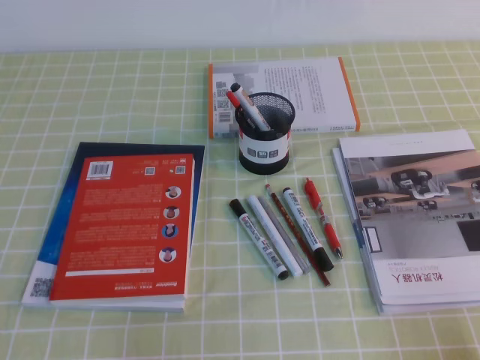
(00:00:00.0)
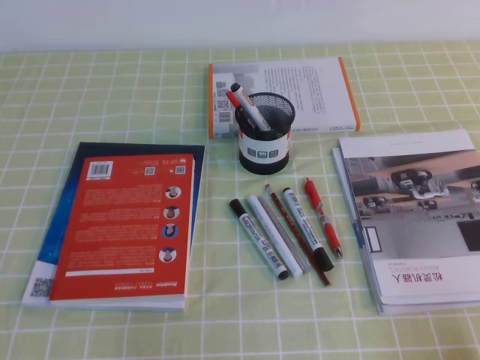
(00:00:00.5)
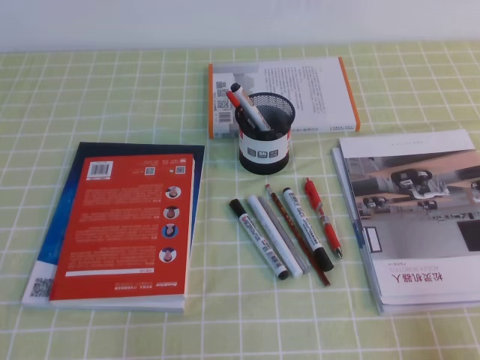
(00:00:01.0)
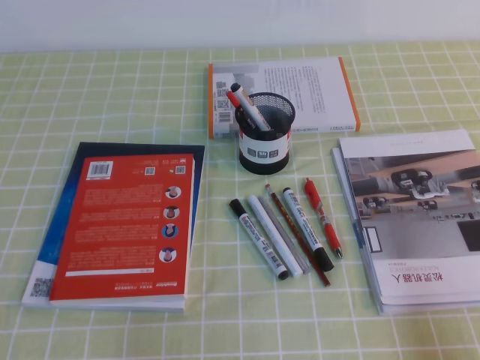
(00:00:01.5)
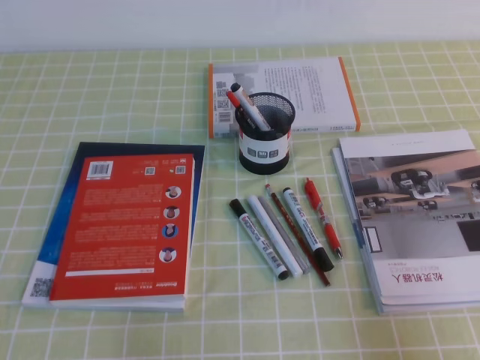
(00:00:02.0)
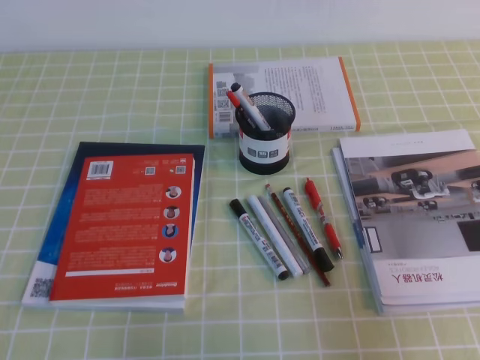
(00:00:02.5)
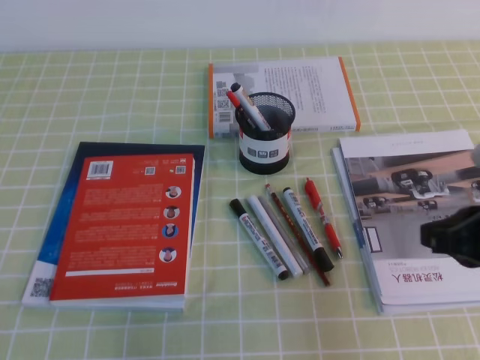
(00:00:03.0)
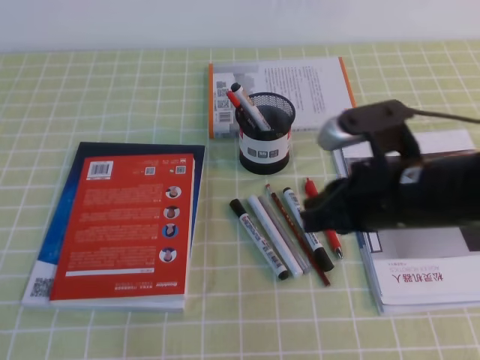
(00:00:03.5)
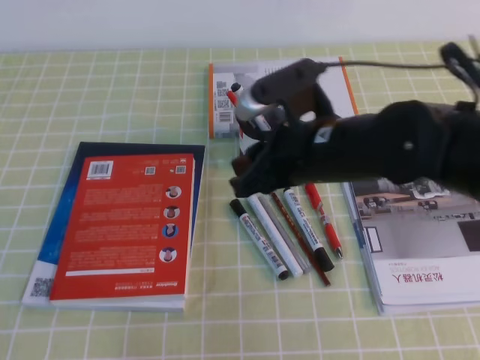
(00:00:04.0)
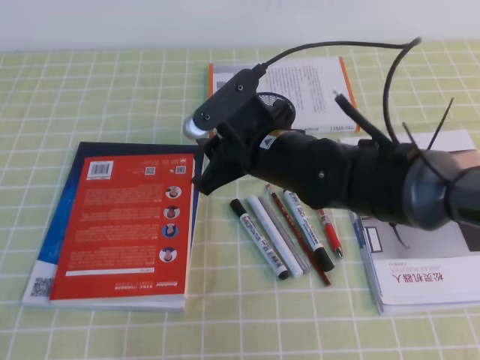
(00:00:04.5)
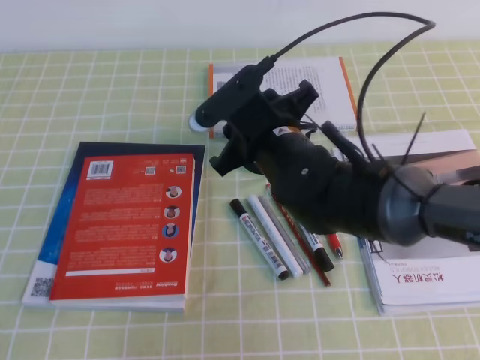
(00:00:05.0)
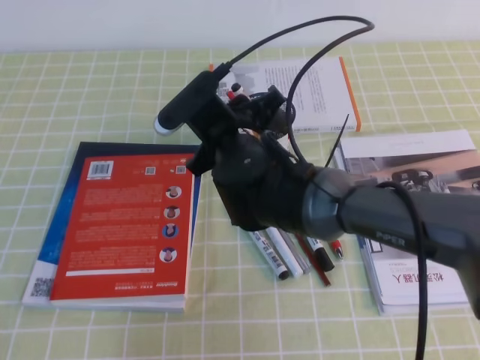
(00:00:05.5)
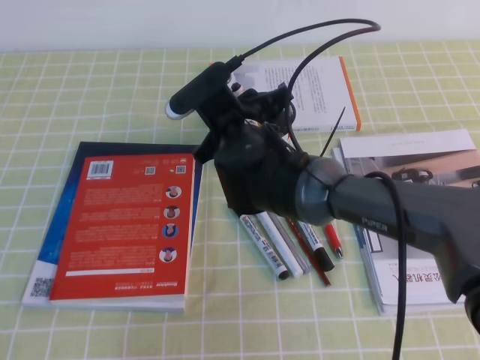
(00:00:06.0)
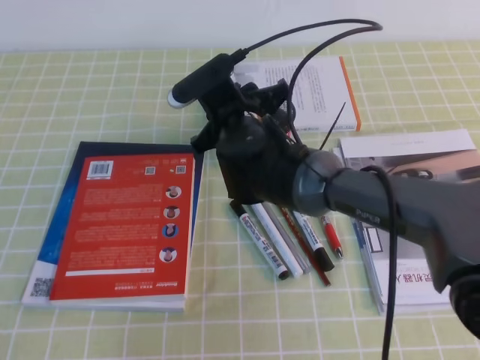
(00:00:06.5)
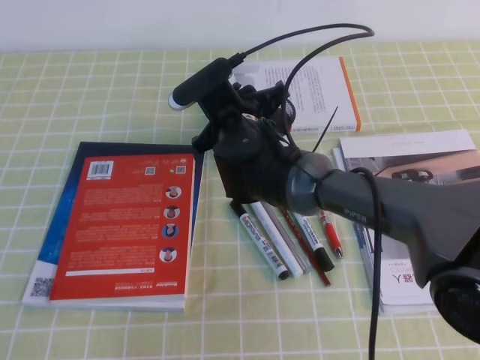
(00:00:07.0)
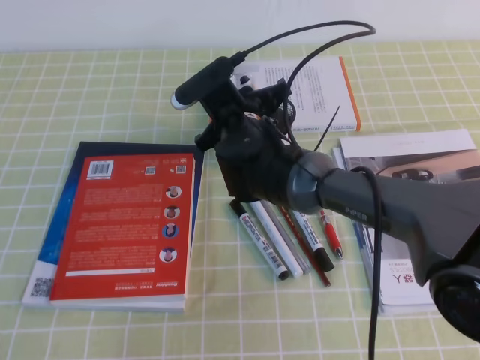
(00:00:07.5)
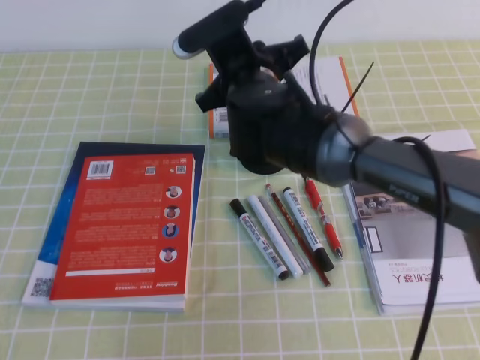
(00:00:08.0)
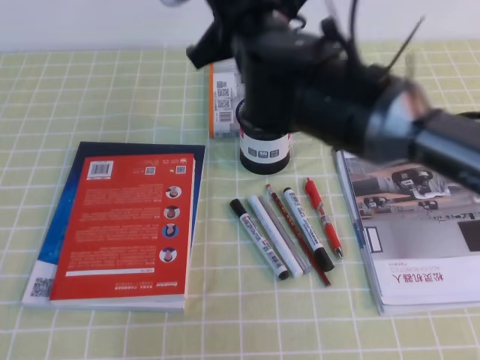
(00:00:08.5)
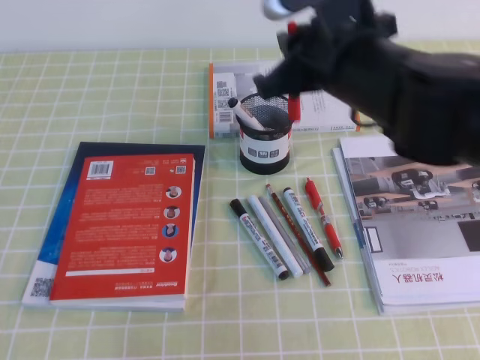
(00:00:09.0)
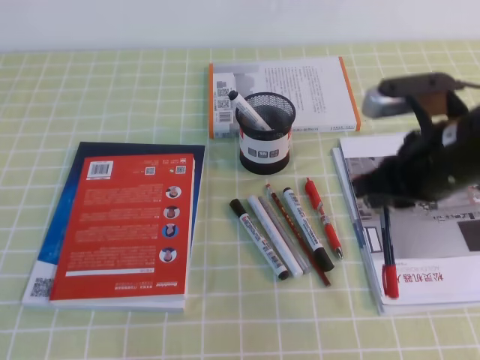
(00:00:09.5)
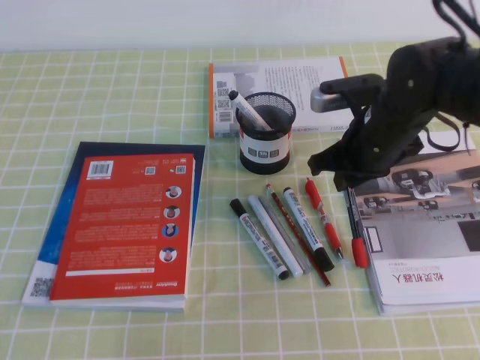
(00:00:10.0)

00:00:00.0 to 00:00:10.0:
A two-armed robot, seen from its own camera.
Step, 00:00:00.0 to 00:00:04.5: Pick up the pen with the right gripper.
Step, 00:00:05.0 to 00:00:06.5: Place the pen on the table with the right gripper.
00:00:00.0 to 00:00:02.0: The right gripper moves upward, about 5 cm.
00:00:02.0 to 00:00:04.0: The right gripper moves to the left and forward, approximately 30 cm, and opens its fingers.
00:00:04.0 to 00:00:06.0: The right gripper is displaced to the left and forward by roughly 10 cm.
00:00:06.0 to 00:00:08.0: The right gripper ends up approximately 5 cm from where it was, and closes.
00:00:08.0 to 00:00:10.0: The right gripper shifts about 15 cm to the right.

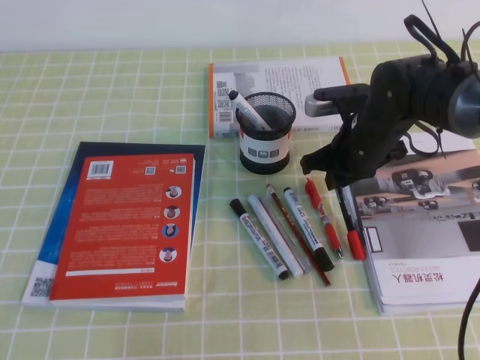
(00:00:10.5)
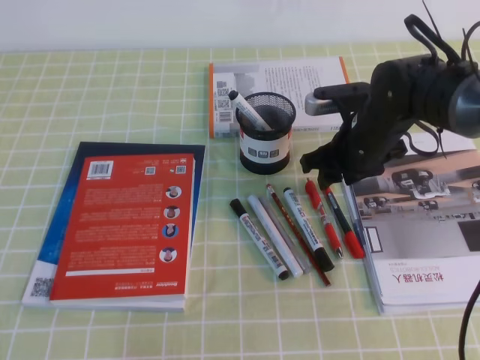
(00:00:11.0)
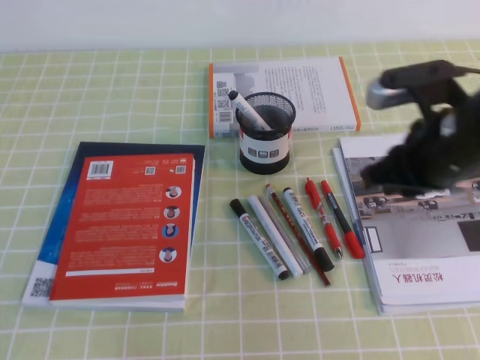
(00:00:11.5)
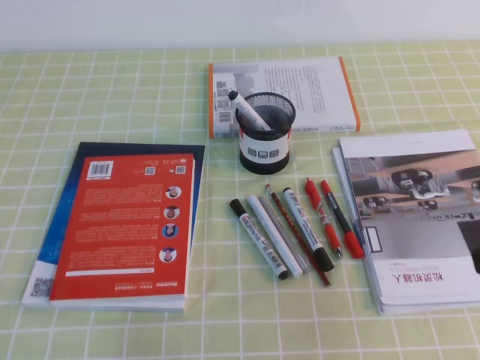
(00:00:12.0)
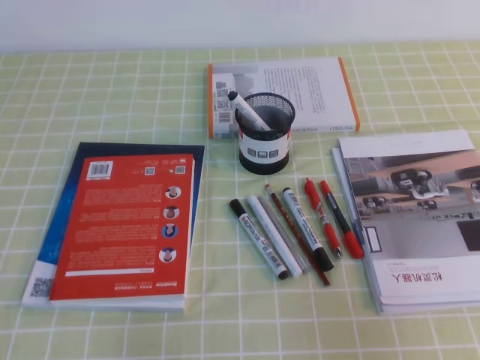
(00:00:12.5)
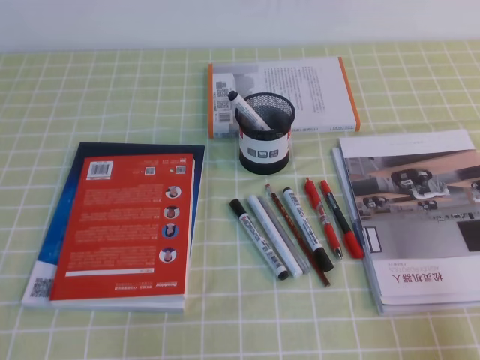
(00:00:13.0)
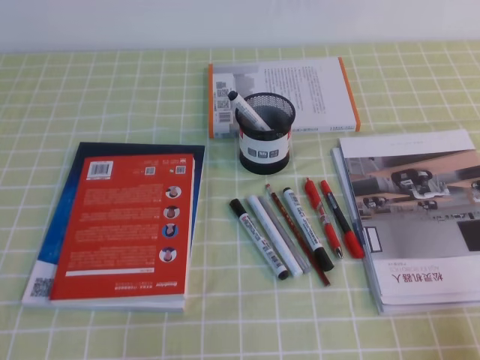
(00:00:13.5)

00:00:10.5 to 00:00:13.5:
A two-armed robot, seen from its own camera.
00:00:10.5 to 00:00:12.0: The right gripper travels backward, upward and to the right by roughly 30 cm, and opens and closes again.
00:00:12.0 to 00:00:13.5: The right gripper heads downward, backward and to the right, covering approximately 20 cm.

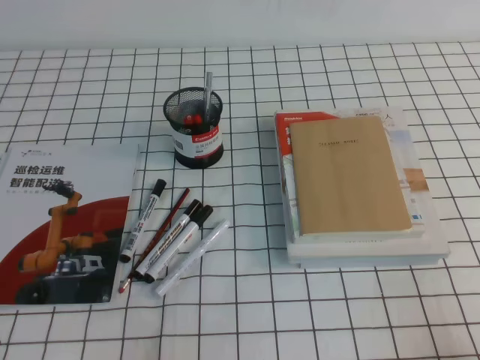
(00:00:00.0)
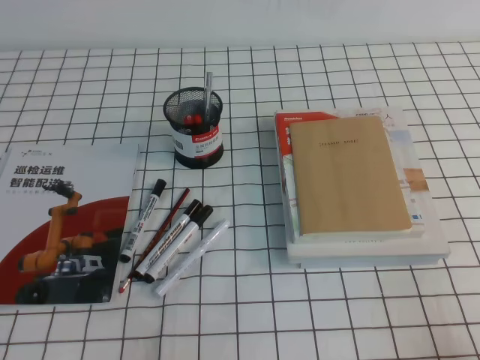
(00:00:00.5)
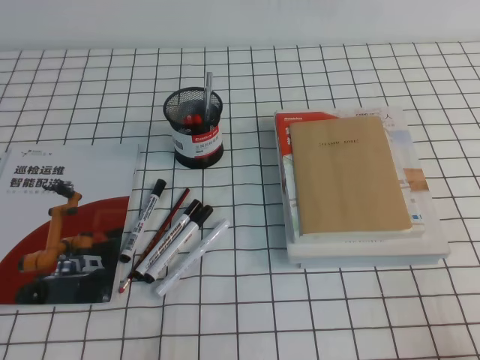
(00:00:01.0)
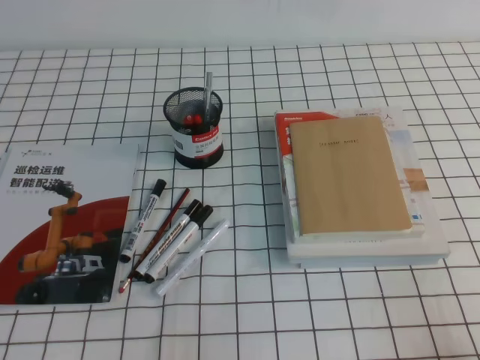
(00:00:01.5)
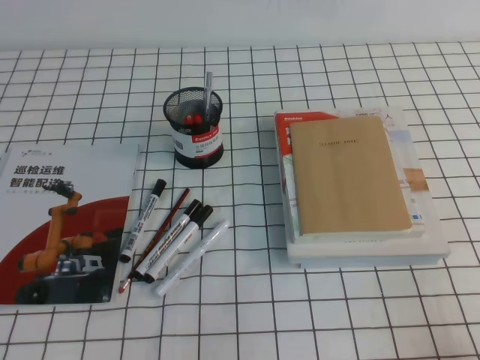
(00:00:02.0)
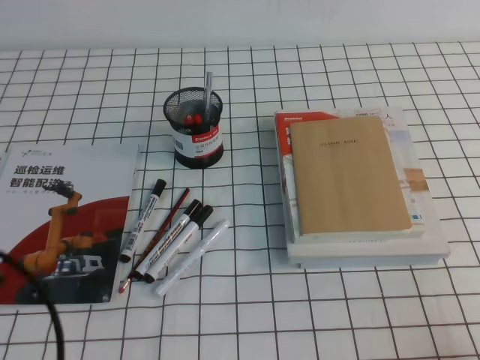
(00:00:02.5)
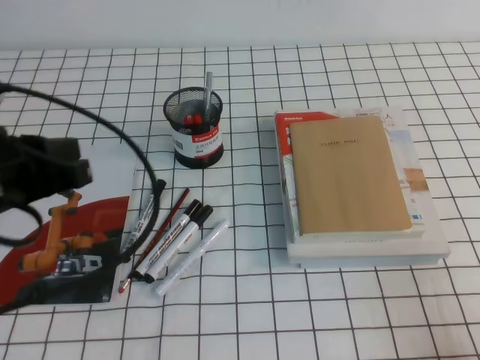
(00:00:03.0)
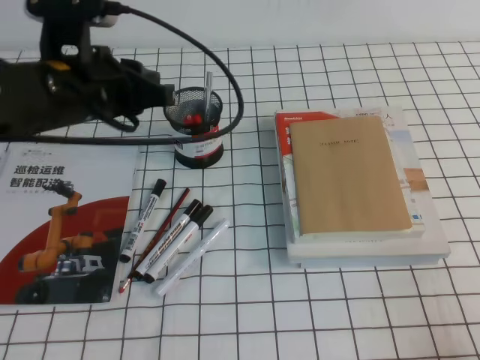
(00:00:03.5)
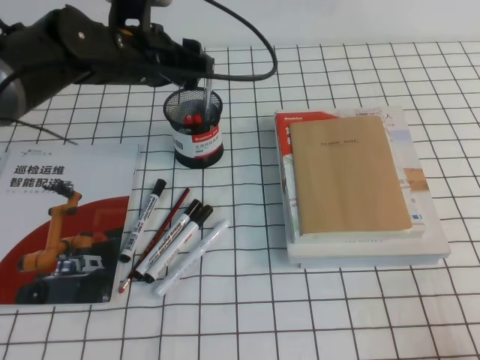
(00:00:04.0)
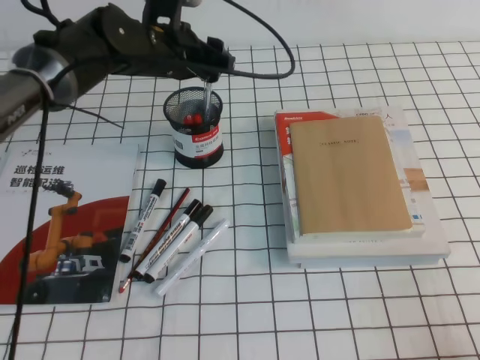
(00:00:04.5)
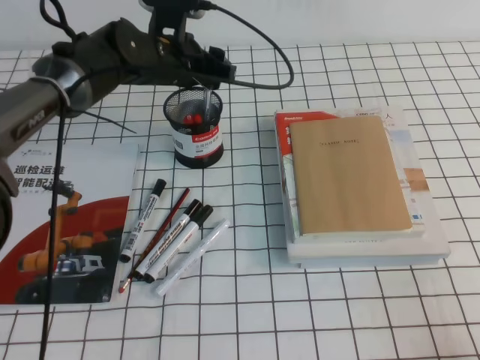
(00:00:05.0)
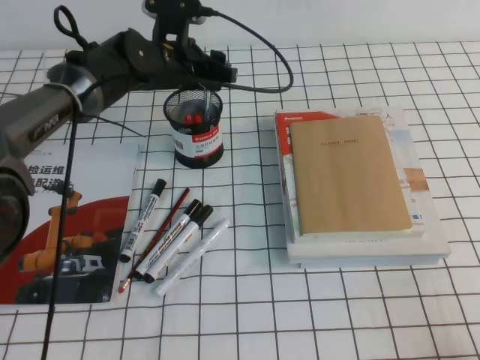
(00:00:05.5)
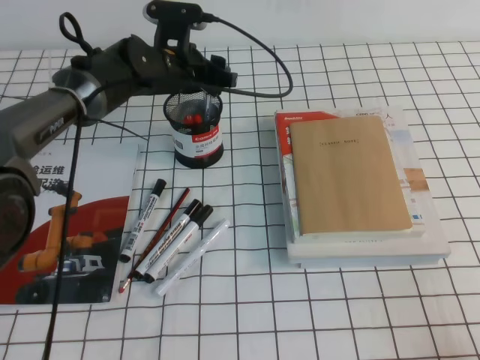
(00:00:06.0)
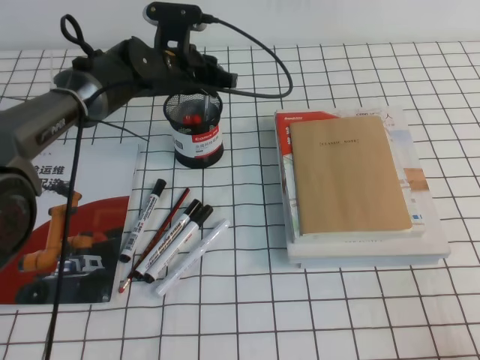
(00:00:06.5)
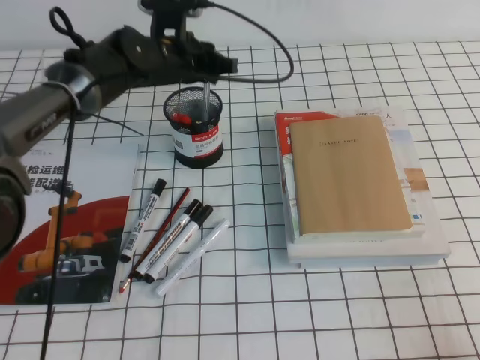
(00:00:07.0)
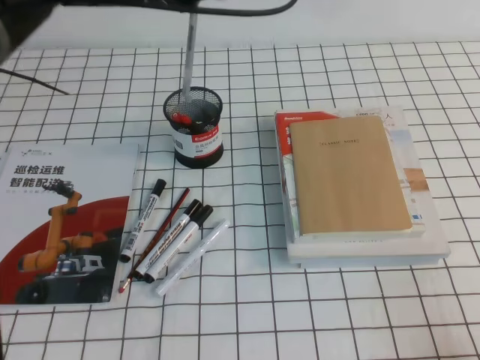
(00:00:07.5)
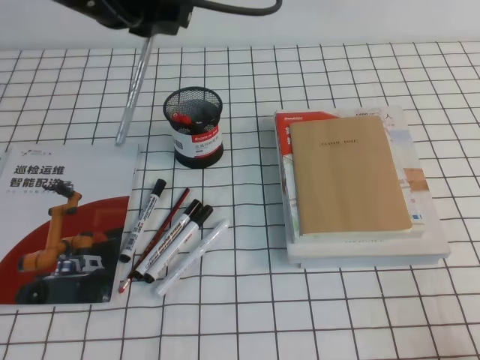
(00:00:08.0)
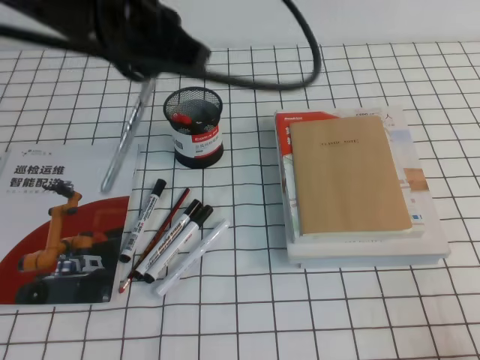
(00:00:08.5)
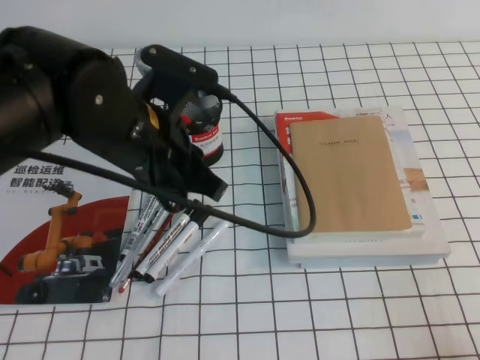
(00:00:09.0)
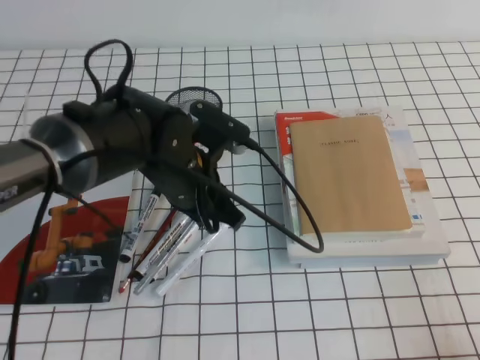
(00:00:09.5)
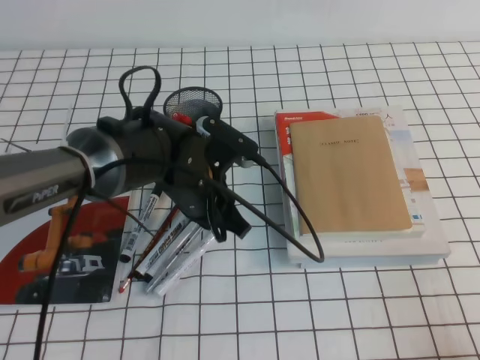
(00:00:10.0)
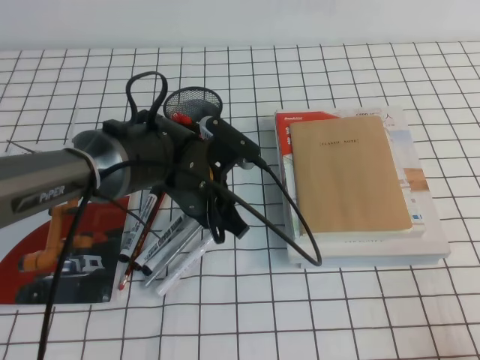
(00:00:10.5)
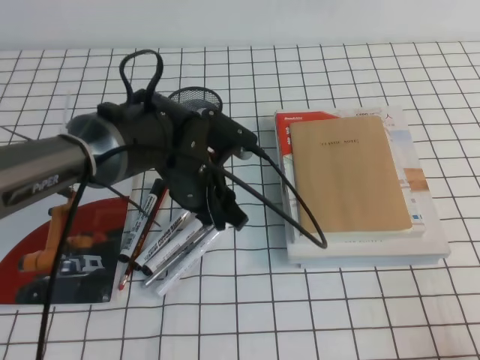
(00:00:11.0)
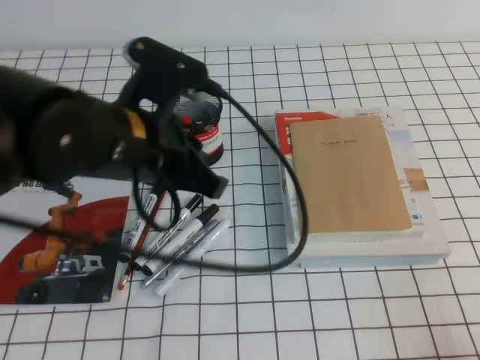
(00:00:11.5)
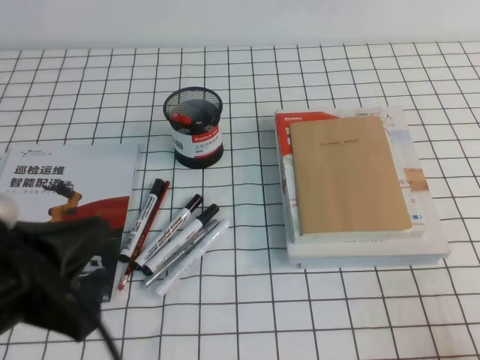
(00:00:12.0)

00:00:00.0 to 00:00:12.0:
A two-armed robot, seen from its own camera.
00:00:02.0 to 00:00:04.0: The left gripper travels forward and to the right by about 40 cm, and opens its fingers.
00:00:04.0 to 00:00:06.0: The left gripper goes approximately 10 cm forward and downward.
00:00:06.0 to 00:00:08.0: The left gripper goes some 25 cm upward and backward, and closes up.
00:00:08.0 to 00:00:10.0: The left gripper goes roughly 20 cm downward.
00:00:10.0 to 00:00:12.0: The left gripper goes roughly 25 cm backward, to the left and upward.
